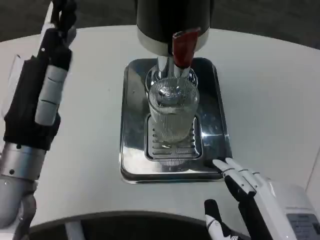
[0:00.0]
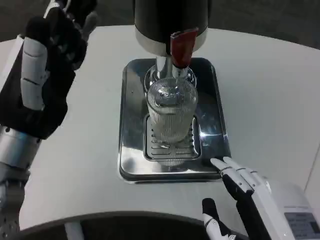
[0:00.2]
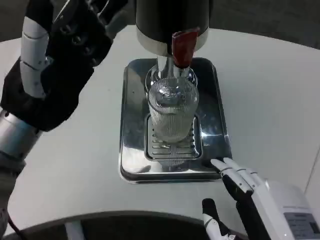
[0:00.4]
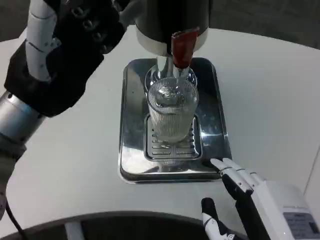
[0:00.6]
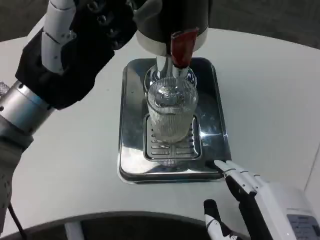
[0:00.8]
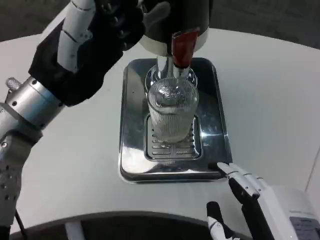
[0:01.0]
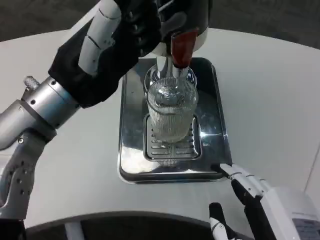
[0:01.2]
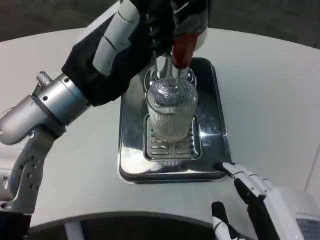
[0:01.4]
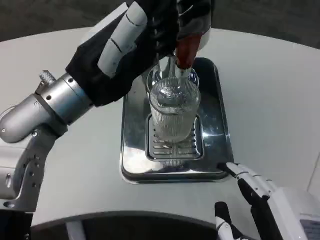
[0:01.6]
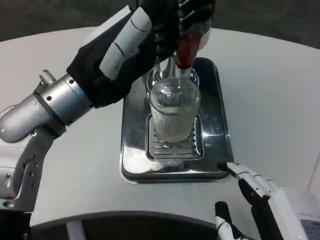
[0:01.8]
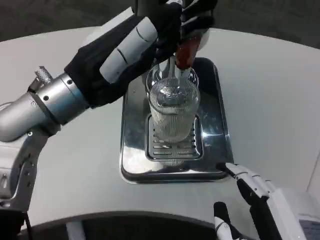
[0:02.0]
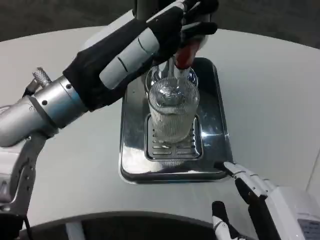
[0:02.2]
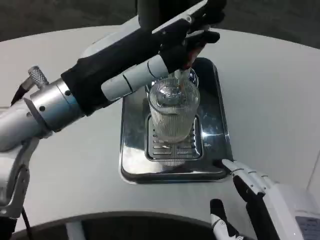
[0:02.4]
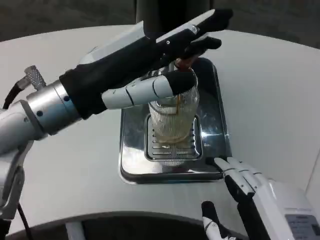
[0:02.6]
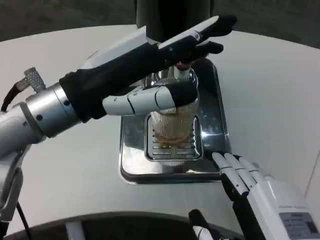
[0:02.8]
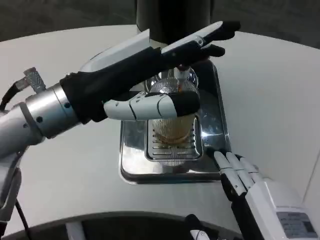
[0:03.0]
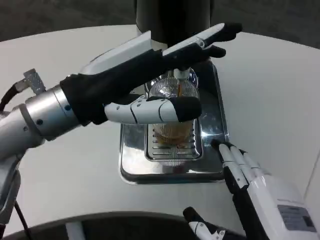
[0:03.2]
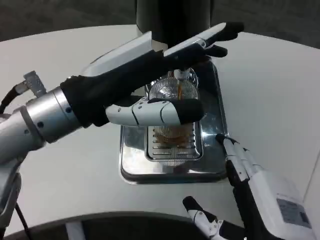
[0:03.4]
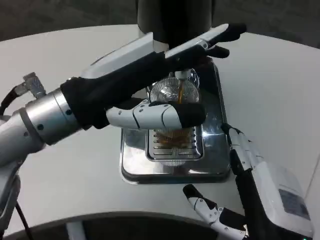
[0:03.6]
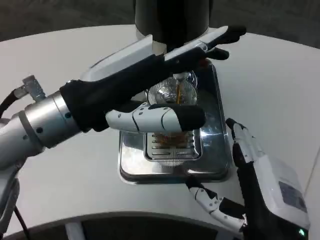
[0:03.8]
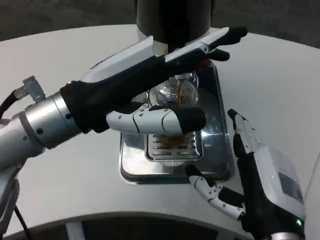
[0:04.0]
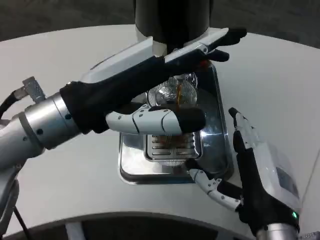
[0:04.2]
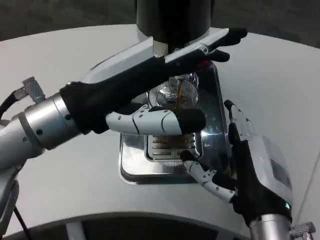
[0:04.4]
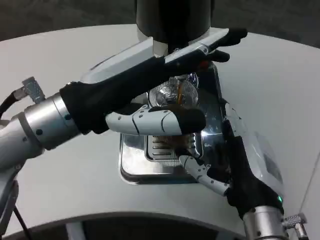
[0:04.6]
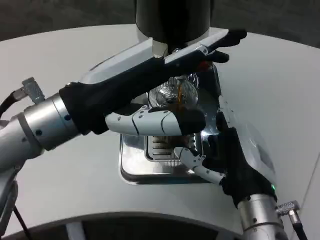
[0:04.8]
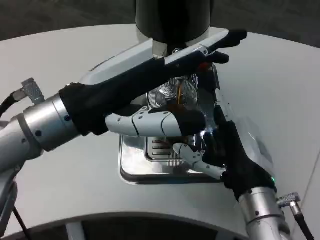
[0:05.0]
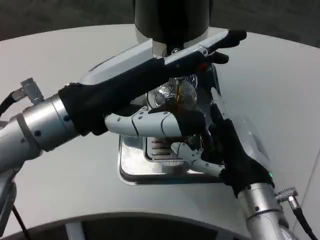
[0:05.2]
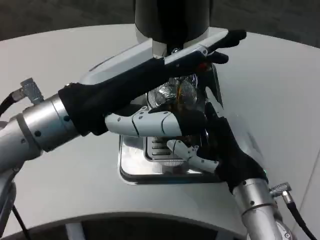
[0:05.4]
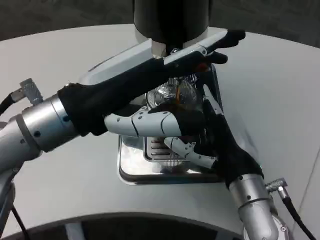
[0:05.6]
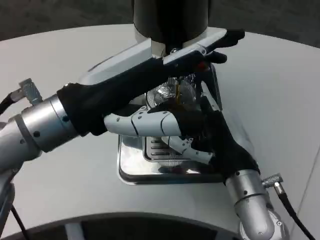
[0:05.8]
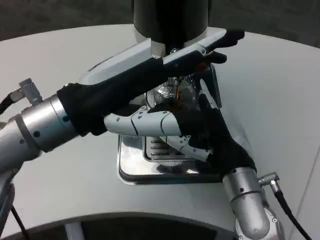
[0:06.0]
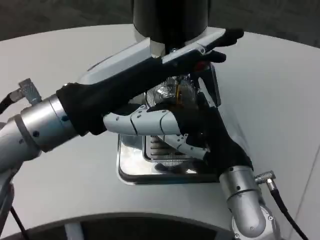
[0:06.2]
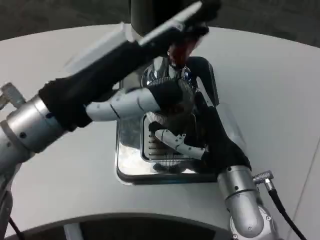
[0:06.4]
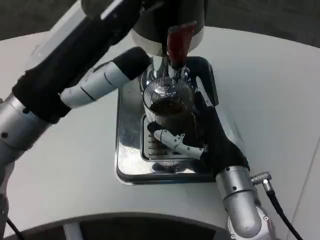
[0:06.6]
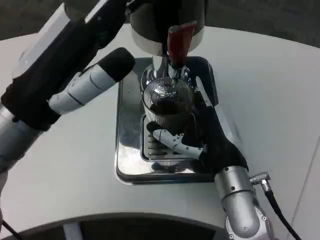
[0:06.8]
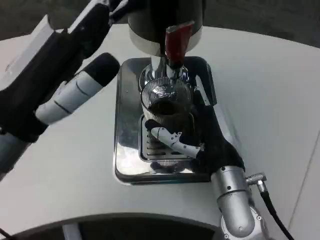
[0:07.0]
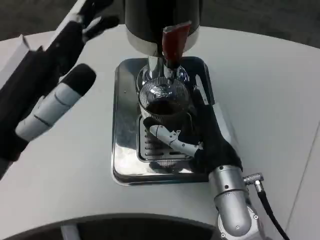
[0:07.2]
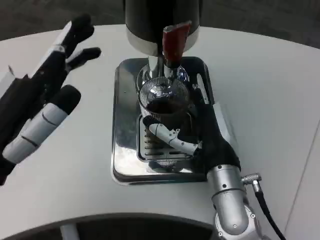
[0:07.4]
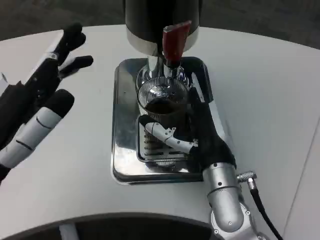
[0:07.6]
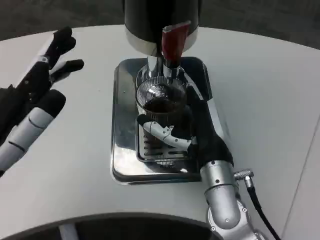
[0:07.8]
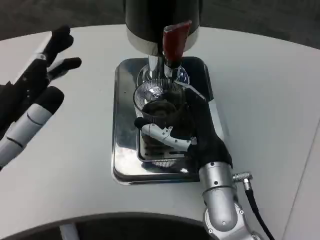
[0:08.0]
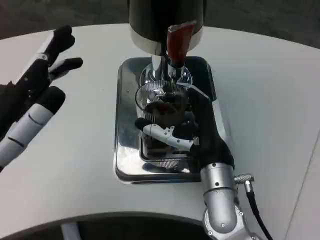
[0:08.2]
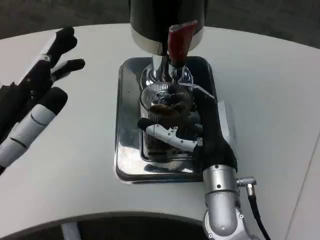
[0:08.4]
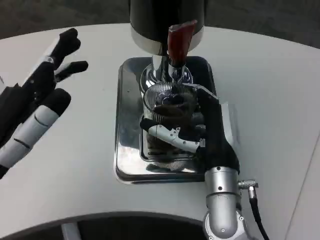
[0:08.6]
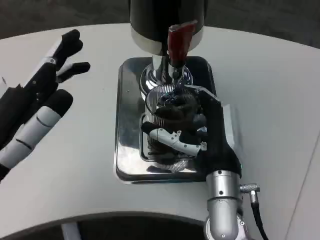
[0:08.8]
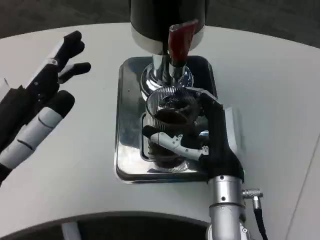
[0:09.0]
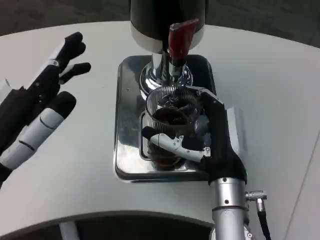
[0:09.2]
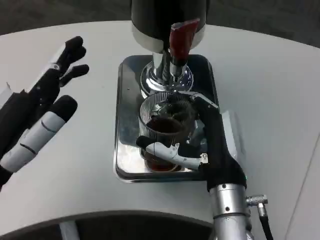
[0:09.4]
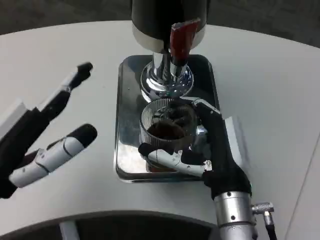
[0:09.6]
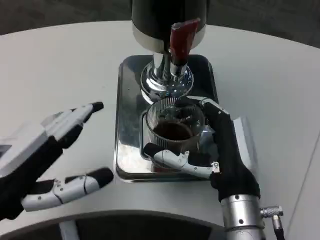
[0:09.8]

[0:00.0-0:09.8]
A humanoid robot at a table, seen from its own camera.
Task of the whole recording: Grasp the cup under the faucet to collect the drink, then remove the cup.
0:00.0 to 0:01.4: The left hand goes approximately 10 cm upward.
0:02.8 to 0:04.2: The right hand is displaced forward by some 10 cm.
0:04.2 to 0:05.6: The right hand moves forward, roughly 10 cm.
0:05.6 to 0:07.0: The left hand shifts by about 5 cm.
0:07.0 to 0:08.4: The left hand ends up about 5 cm from where it was.
0:08.4 to 0:09.8: The right hand shifts some 5 cm backward.

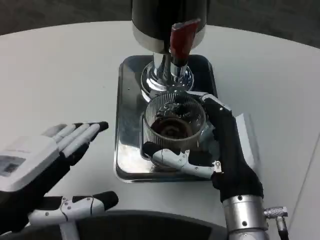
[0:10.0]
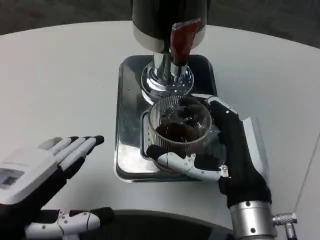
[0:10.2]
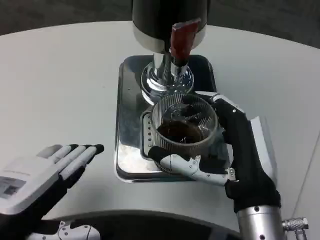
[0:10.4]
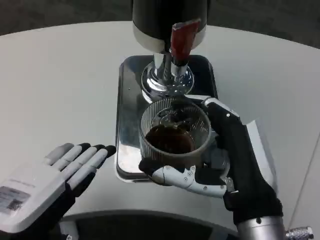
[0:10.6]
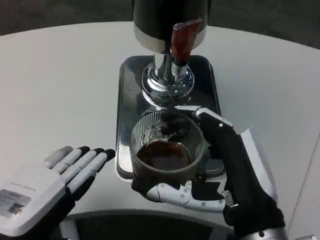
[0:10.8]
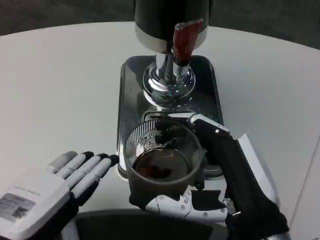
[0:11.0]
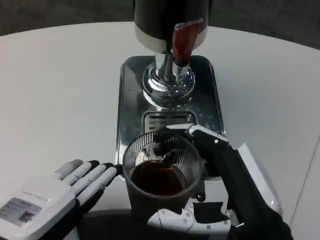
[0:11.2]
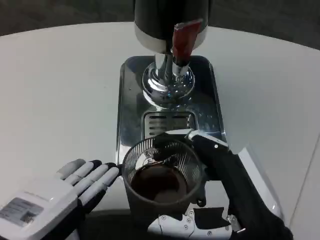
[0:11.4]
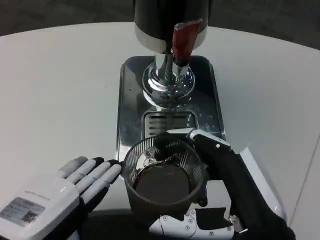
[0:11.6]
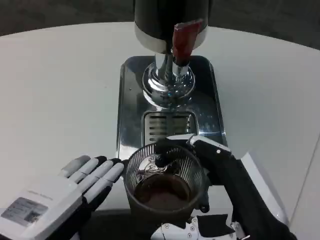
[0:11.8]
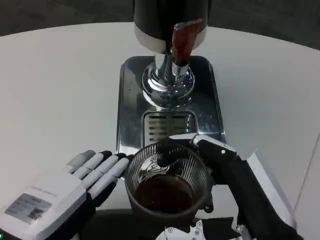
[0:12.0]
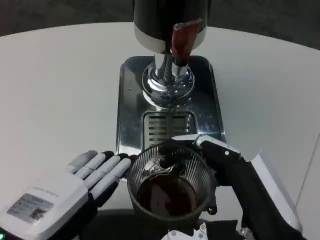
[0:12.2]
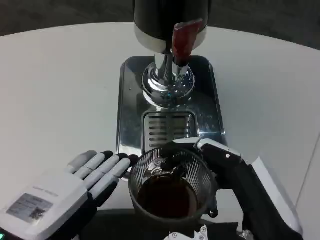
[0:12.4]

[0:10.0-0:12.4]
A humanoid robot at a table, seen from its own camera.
Task of the whole recording: Grasp the cup under the faucet to collect the drink, then remove the cup.
0:10.0 to 0:11.2: The right hand is displaced backward by roughly 10 cm.
0:11.2 to 0:12.4: There are only small adjustments of the hands.

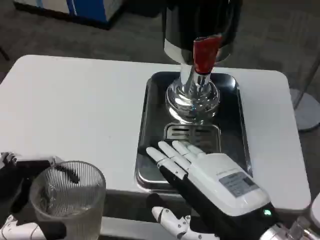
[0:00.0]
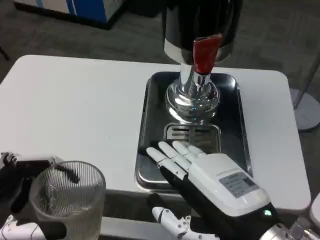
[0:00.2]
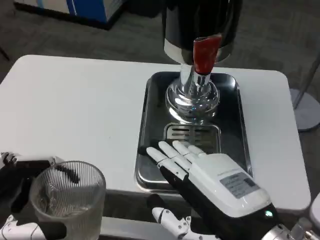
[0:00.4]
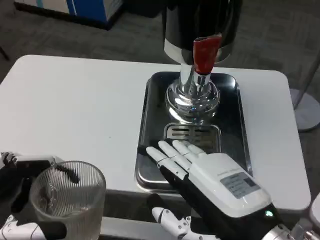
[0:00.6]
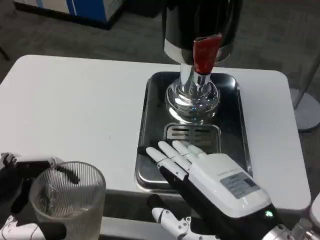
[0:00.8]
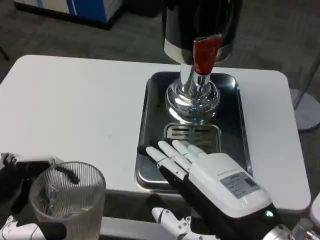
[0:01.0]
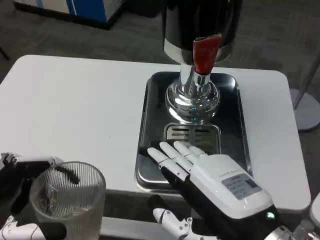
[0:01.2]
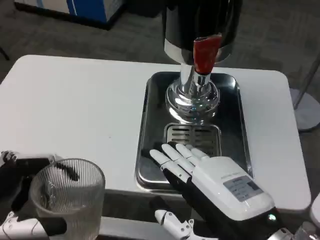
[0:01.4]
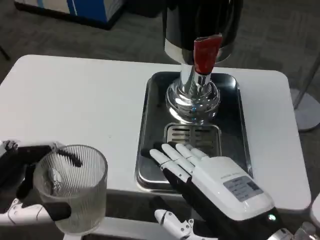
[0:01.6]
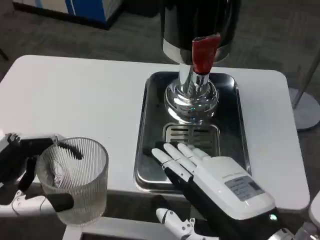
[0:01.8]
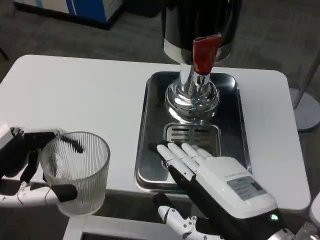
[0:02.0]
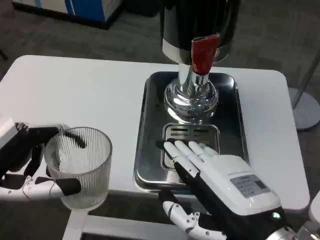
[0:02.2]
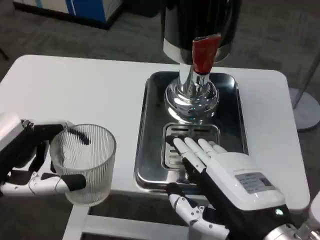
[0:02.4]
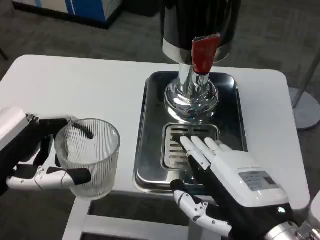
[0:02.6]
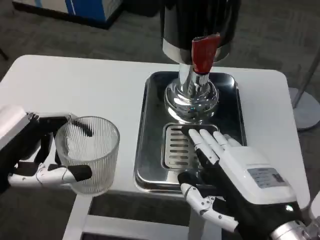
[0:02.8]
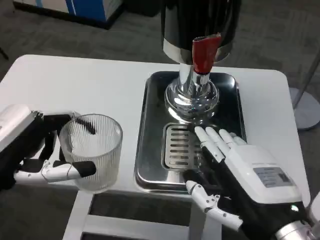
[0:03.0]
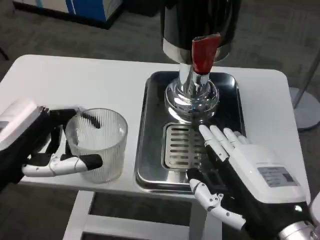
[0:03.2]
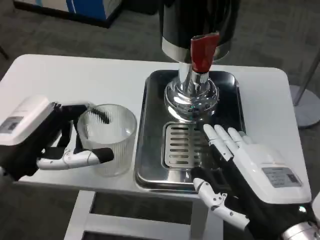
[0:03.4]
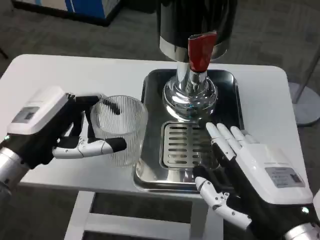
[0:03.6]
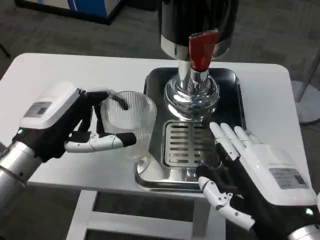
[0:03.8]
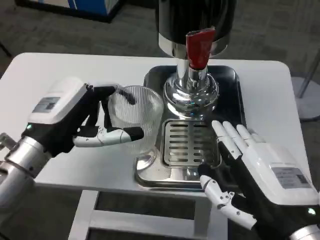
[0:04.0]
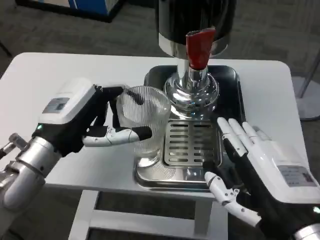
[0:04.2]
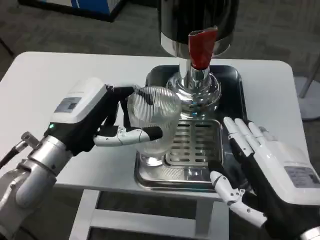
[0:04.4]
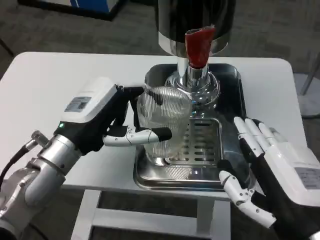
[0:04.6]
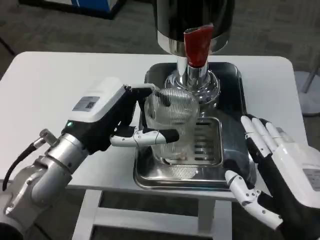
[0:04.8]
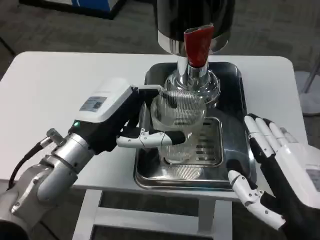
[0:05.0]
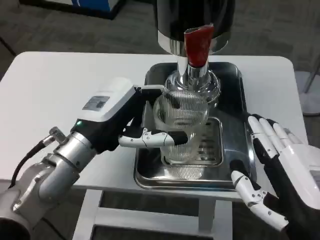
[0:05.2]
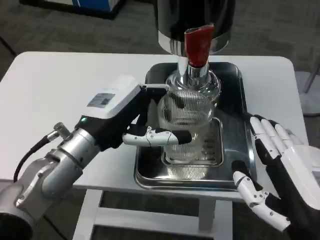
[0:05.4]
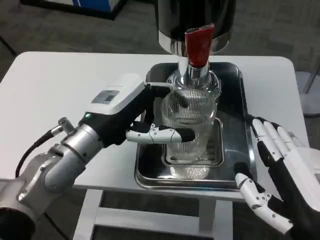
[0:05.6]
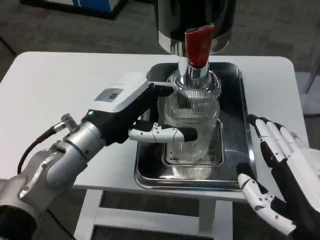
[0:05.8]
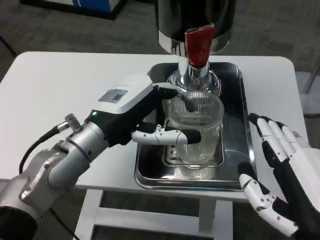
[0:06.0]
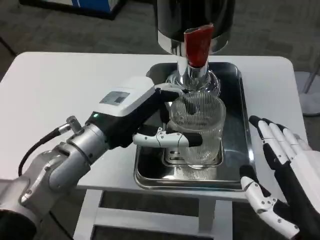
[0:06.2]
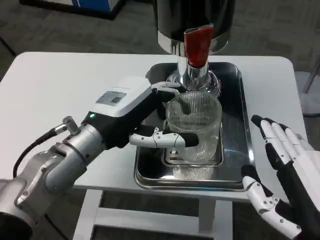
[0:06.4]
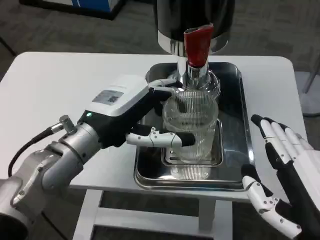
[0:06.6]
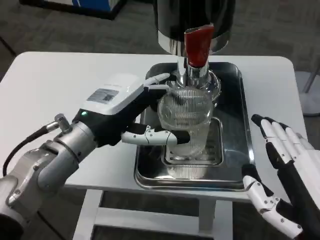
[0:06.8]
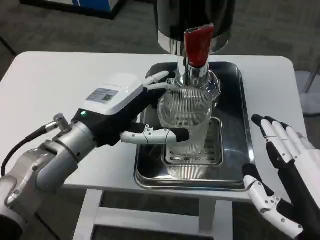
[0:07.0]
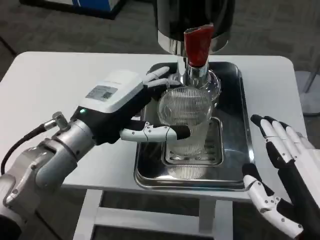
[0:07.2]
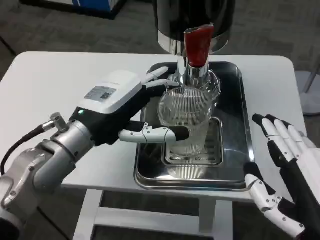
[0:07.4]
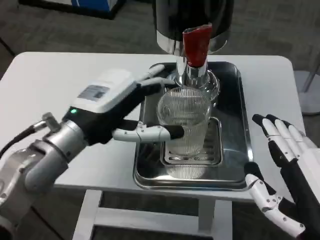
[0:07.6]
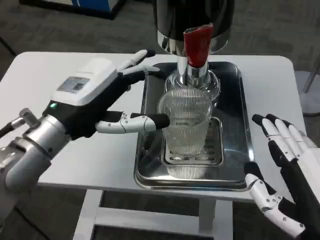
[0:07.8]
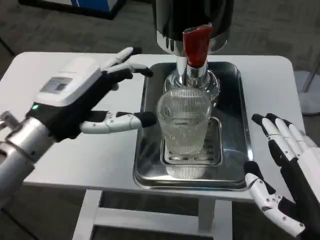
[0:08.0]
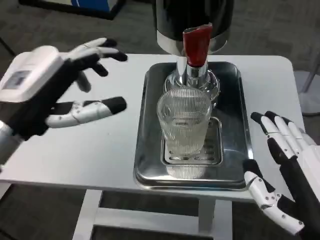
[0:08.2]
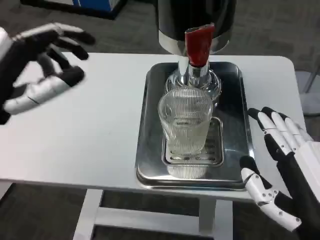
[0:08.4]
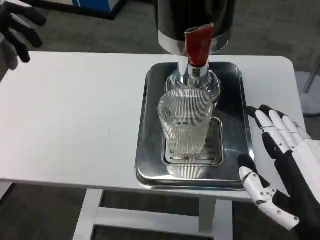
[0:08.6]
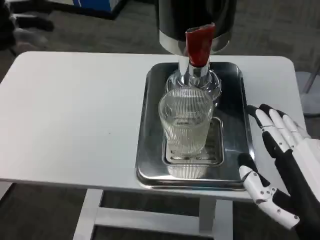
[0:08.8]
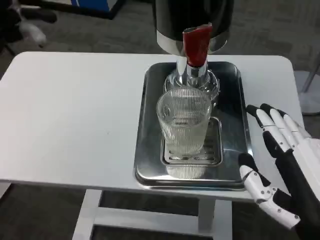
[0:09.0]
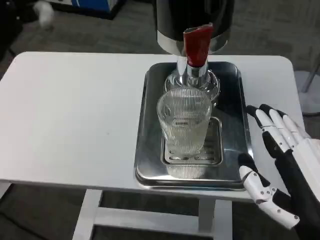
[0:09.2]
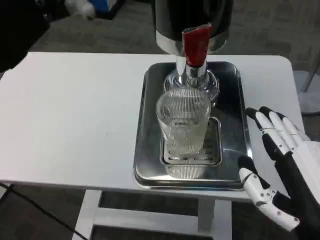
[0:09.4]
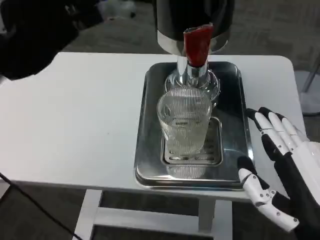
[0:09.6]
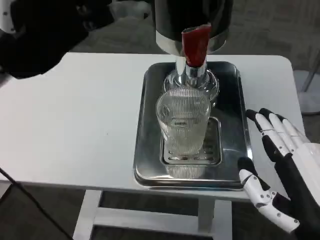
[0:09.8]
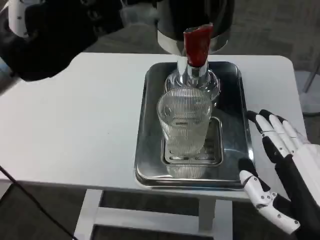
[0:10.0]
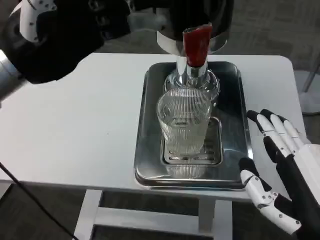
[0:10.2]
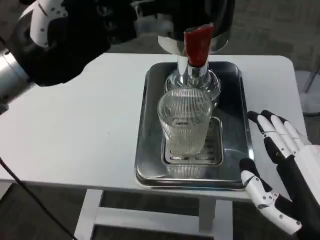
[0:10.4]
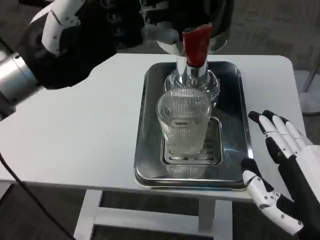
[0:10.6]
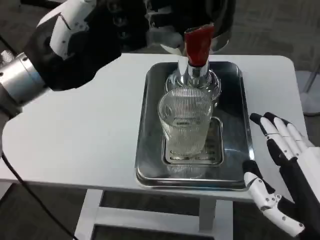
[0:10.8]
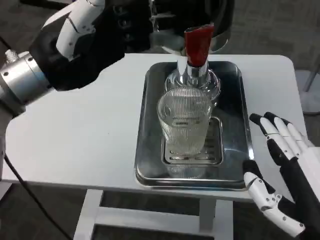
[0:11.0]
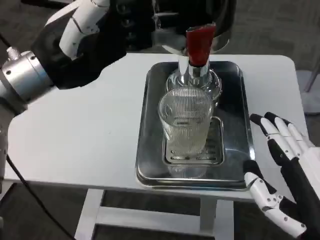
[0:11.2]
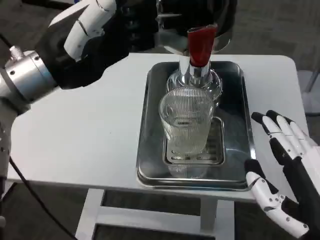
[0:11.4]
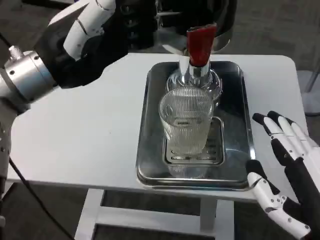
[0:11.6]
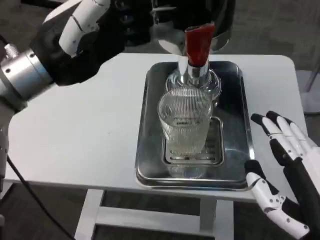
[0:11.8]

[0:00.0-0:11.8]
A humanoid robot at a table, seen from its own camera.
Task of the whole recording: Grasp the cup under the faucet to collect the drink, then remove the cup.
0:00.0 to 0:01.4: The two hands keep their place.
0:01.4 to 0:03.0: The left hand heads forward, covering approximately 5 cm.
0:03.0 to 0:04.4: The left hand travels to the right and forward by about 10 cm.
0:07.4 to 0:08.8: The left hand shifts some 15 cm to the left, upward and backward.
0:08.8 to 0:10.4: The left hand moves to the right, some 5 cm.
0:10.4 to 0:11.8: The hands make only small movements.
